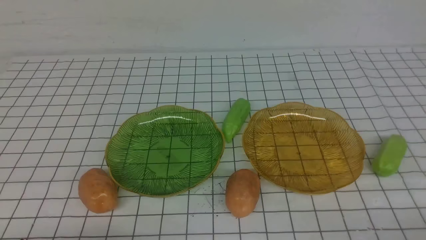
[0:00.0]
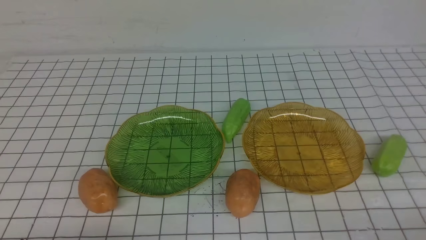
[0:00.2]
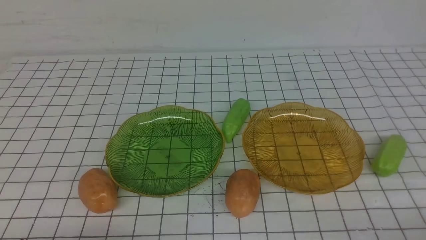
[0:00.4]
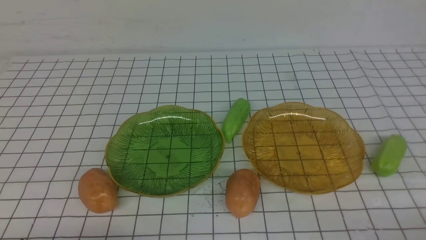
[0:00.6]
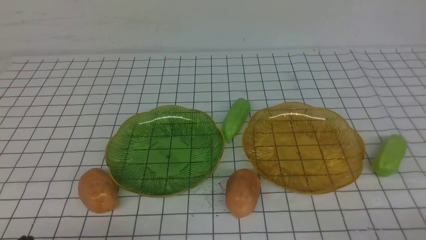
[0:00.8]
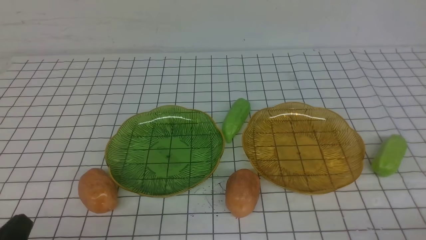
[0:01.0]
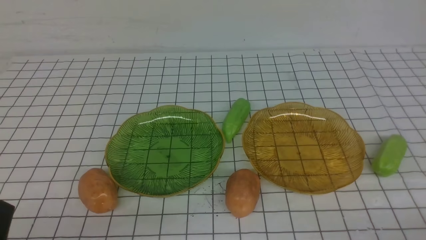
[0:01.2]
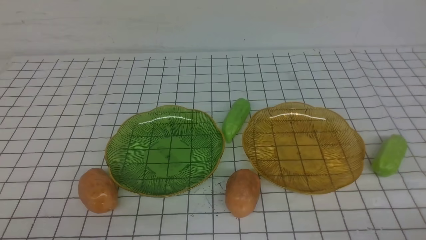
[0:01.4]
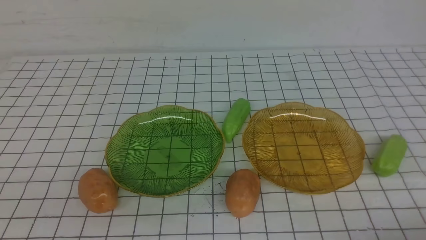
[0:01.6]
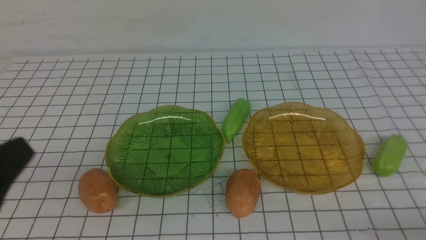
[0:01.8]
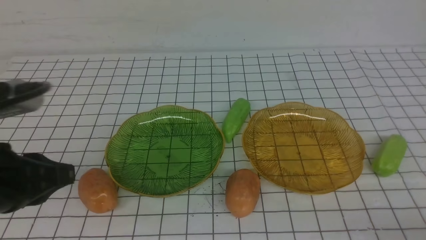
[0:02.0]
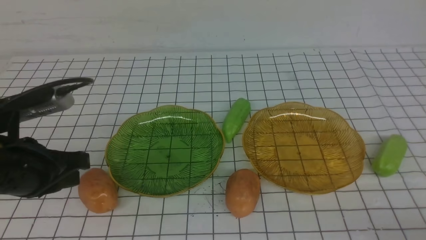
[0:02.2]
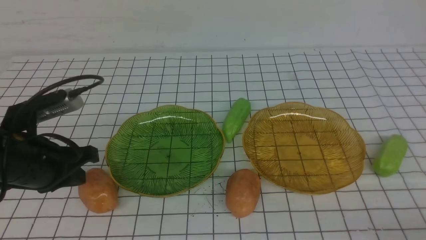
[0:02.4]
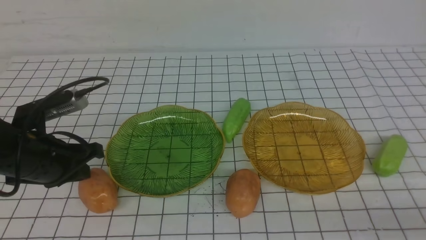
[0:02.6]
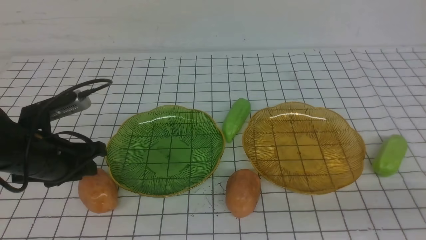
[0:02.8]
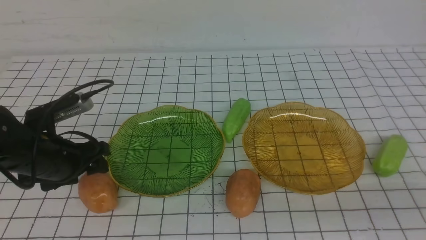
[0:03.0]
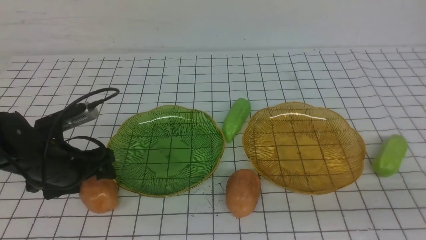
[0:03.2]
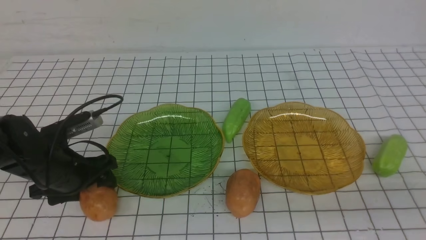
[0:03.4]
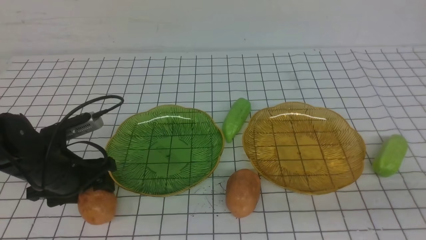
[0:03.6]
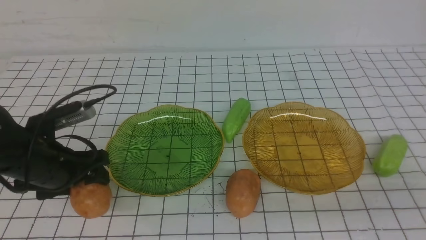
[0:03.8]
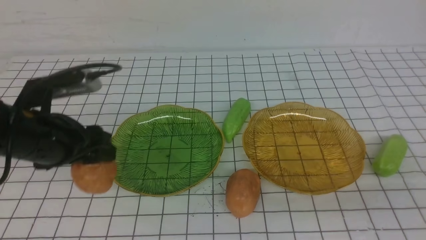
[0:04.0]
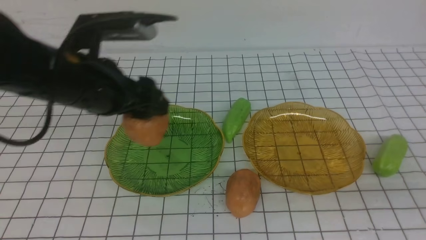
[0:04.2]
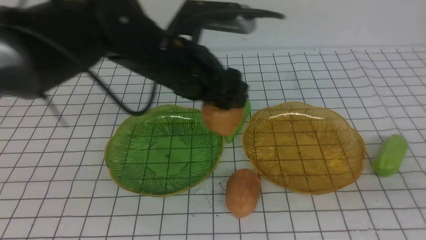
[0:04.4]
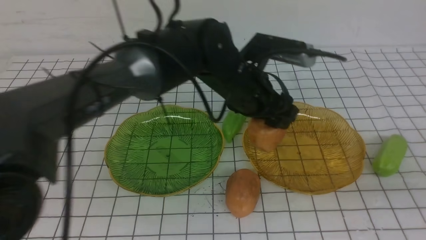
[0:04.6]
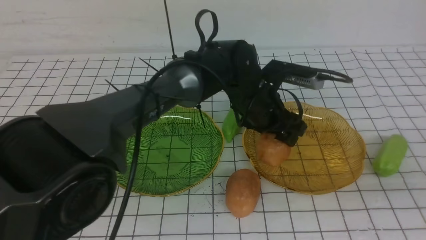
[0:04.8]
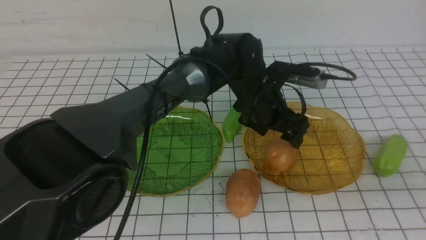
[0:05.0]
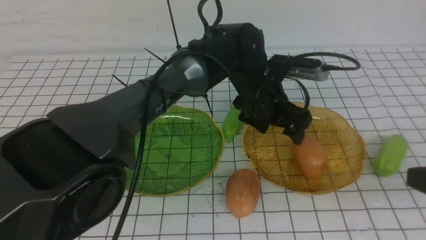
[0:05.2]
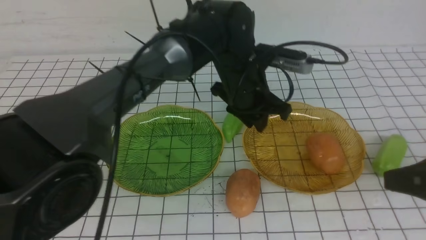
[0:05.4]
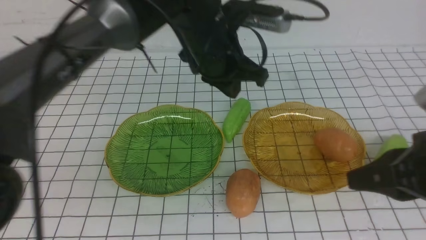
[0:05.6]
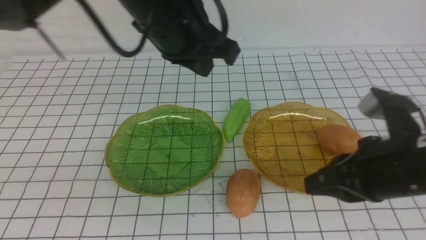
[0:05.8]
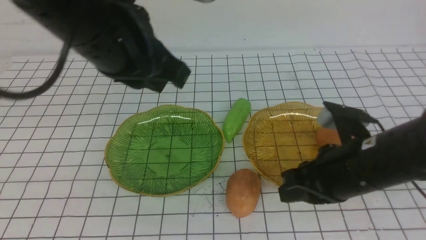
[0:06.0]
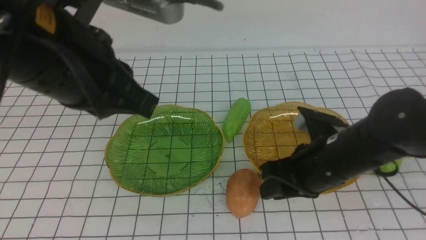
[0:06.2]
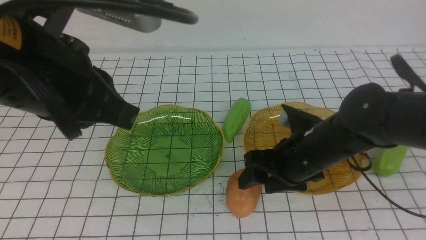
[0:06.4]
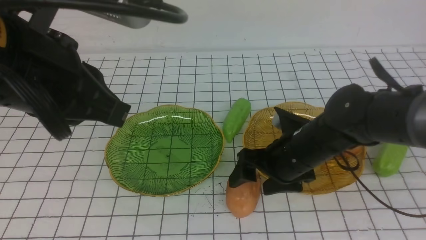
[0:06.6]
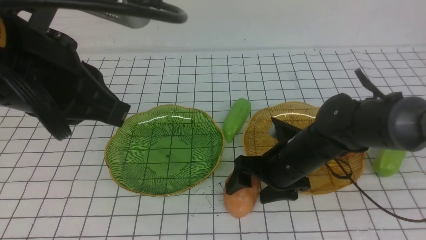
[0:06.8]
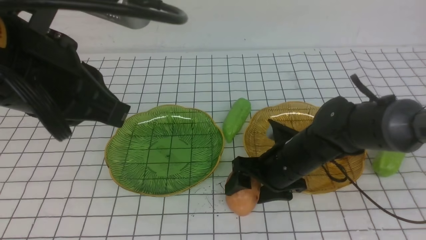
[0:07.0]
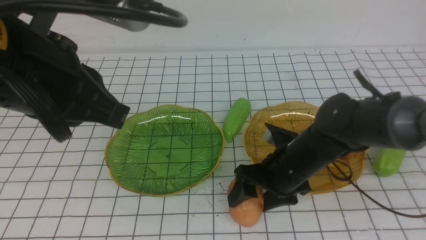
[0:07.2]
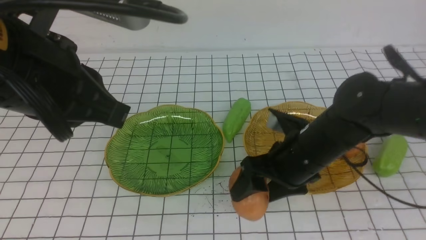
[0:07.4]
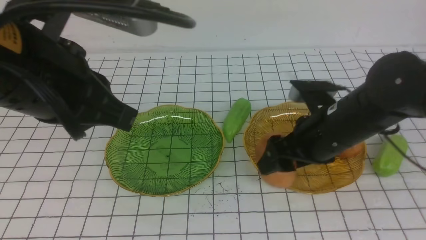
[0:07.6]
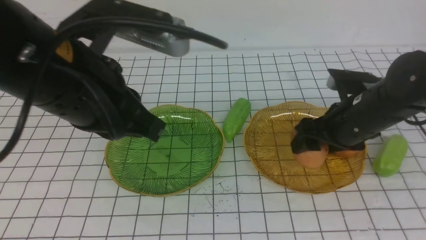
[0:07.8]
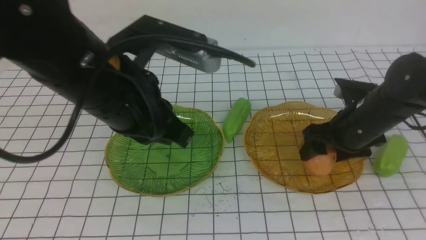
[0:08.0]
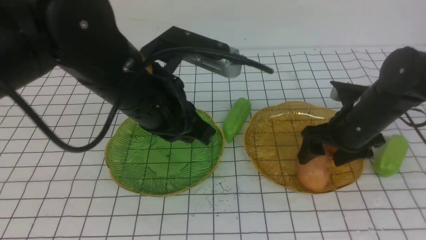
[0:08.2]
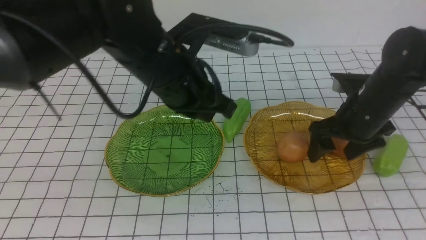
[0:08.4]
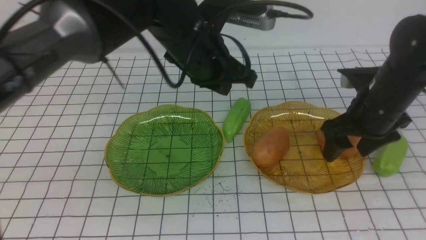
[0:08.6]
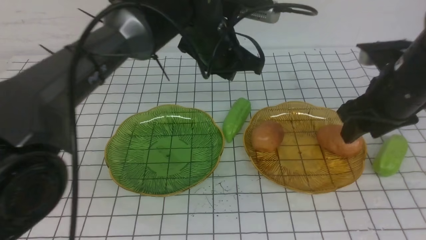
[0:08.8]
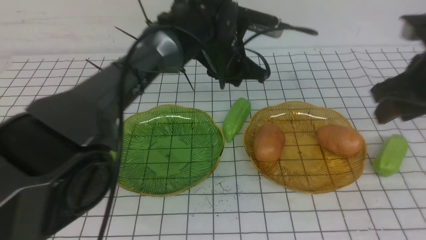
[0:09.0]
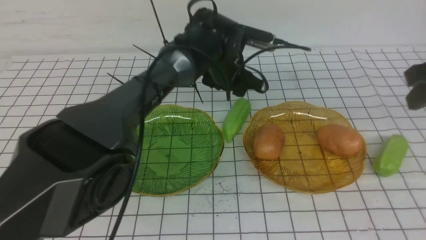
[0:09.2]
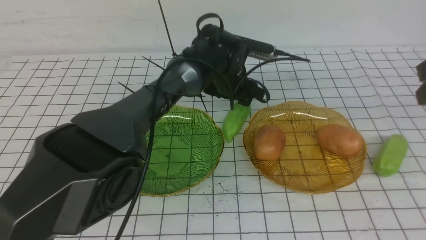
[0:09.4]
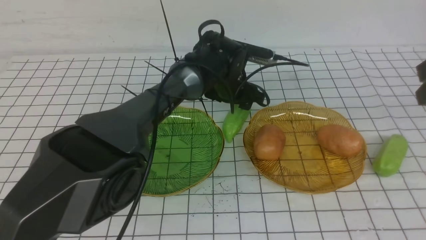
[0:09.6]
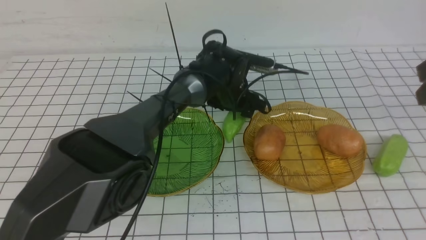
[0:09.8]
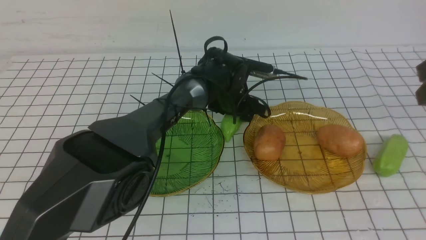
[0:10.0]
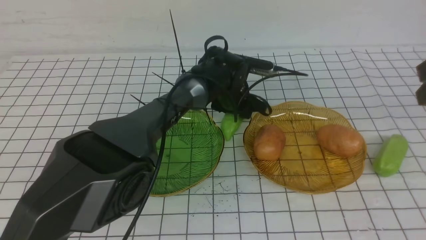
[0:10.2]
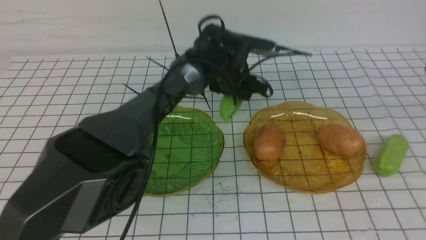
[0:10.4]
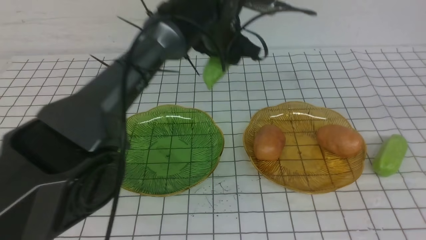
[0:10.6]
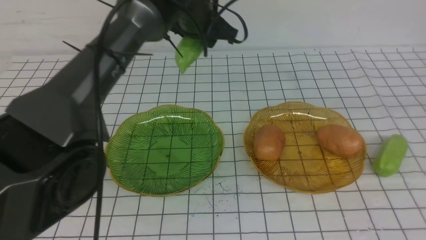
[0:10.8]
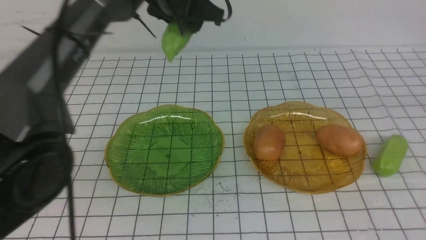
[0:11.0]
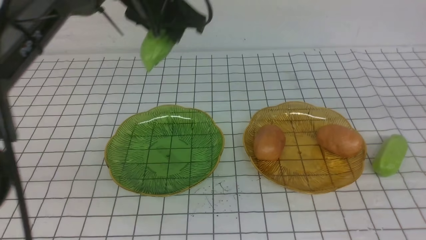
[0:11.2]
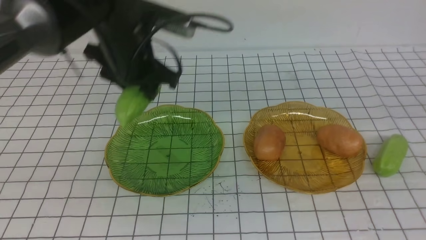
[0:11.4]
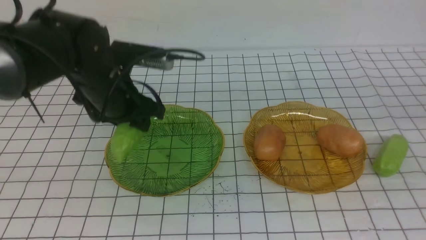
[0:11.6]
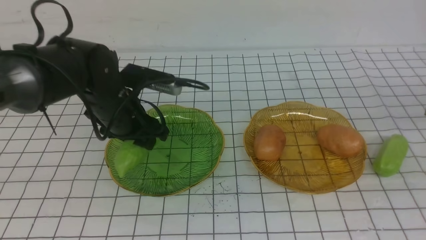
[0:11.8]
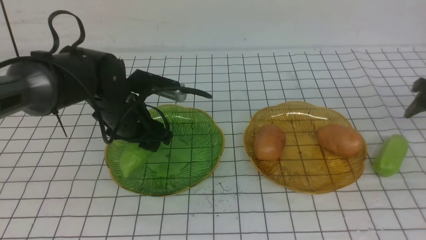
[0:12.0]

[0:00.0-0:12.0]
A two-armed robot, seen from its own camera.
Step, 0:00.0 to 0:04.8: Grab a potato with your left arm and put it on the right plate.
Step, 0:05.2 to 0:08.2: Grab a potato with your right arm and put it on the right plate.
0:01.6 to 0:03.0: The left gripper goes some 25 cm forward and downward, and opens its fingers.
0:03.0 to 0:04.4: The right gripper heads forward, covering approximately 5 cm. The left gripper travels to the right and upward by some 25 cm.
0:04.4 to 0:06.0: The left gripper travels upward, backward and to the left by about 15 cm, and closes up. The right gripper goes about 20 cm to the left, forward and downward.
0:06.0 to 0:07.6: The left gripper shifts by roughly 5 cm. Meanwhile the right gripper shifts some 5 cm forward, goes downward and returns, some 10 cm each way, and opens its fingers.
0:07.6 to 0:09.0: The right gripper shifts some 15 cm to the right and upward. The left gripper heads forward, to the right and downward, covering roughly 30 cm, and opens.
0:09.0 to 0:10.4: The right gripper ends up some 5 cm from where it was, while the left gripper travels downward and back again, about 10 cm each way.
0:10.4 to 0:12.0: The right gripper travels downward, forward and to the right by roughly 20 cm, and opens up; the left gripper goes approximately 20 cm to the left and backward.

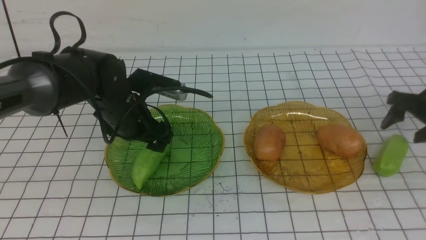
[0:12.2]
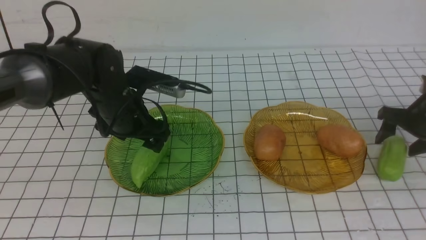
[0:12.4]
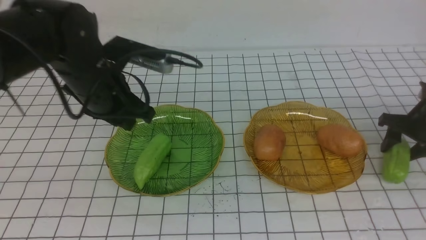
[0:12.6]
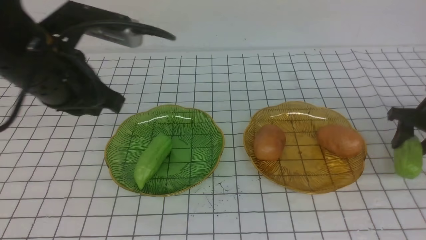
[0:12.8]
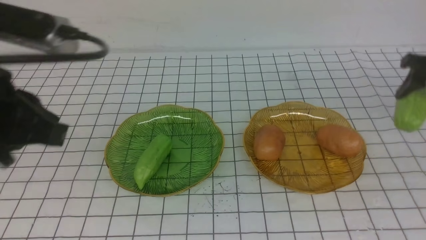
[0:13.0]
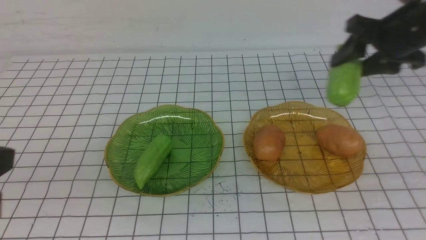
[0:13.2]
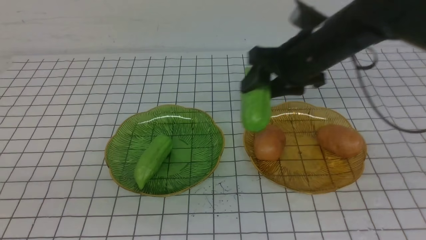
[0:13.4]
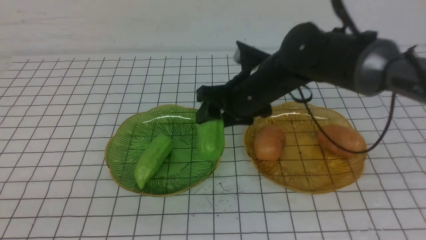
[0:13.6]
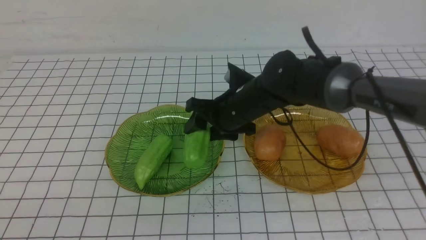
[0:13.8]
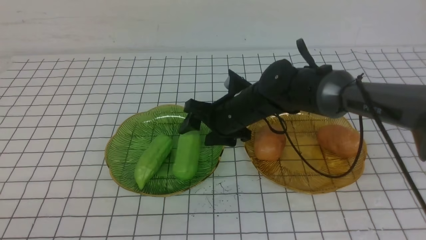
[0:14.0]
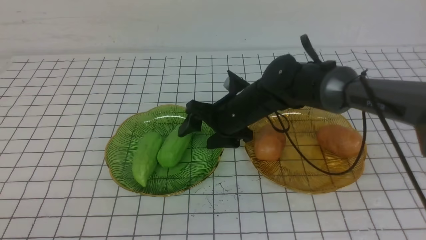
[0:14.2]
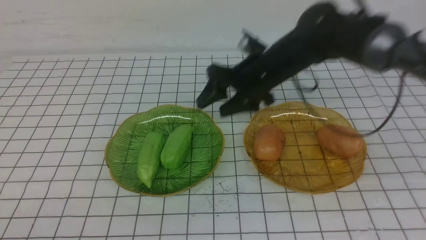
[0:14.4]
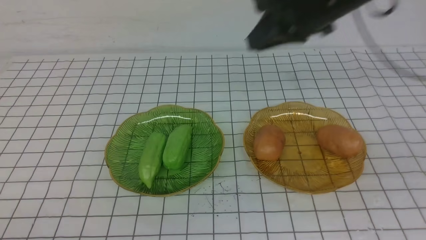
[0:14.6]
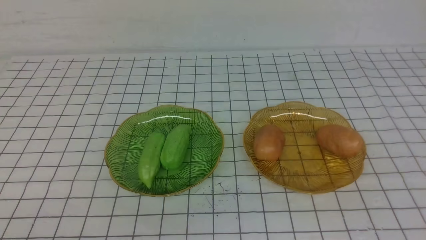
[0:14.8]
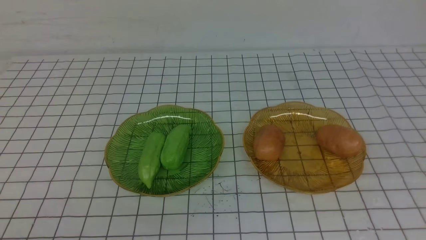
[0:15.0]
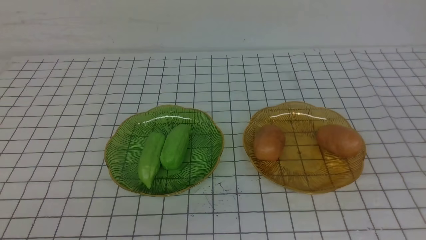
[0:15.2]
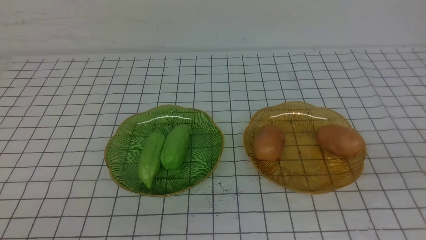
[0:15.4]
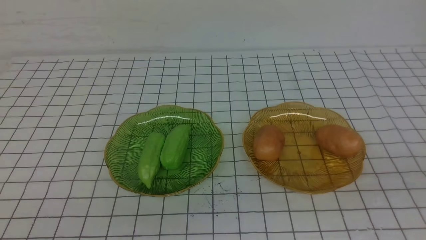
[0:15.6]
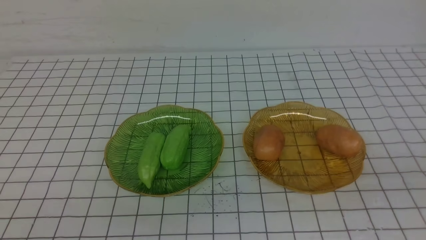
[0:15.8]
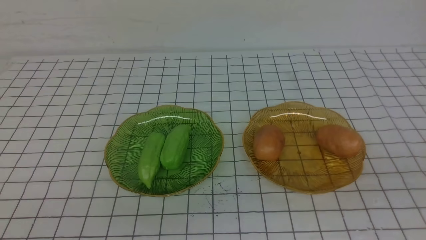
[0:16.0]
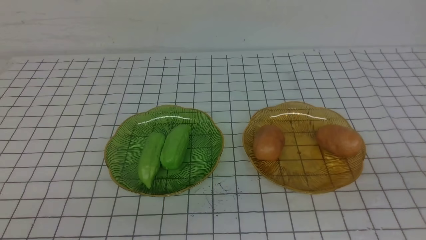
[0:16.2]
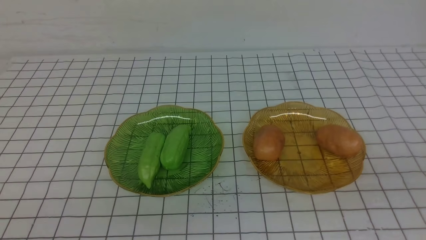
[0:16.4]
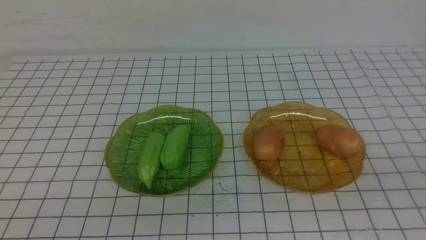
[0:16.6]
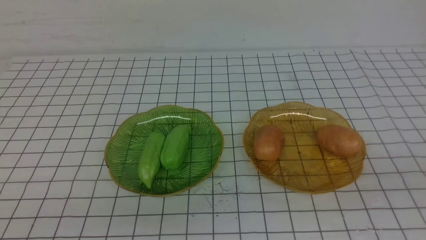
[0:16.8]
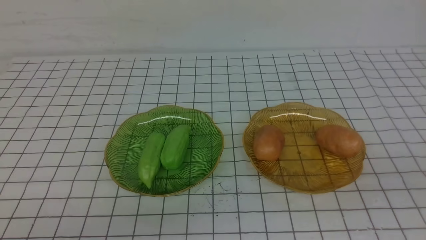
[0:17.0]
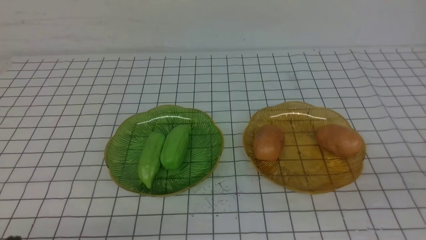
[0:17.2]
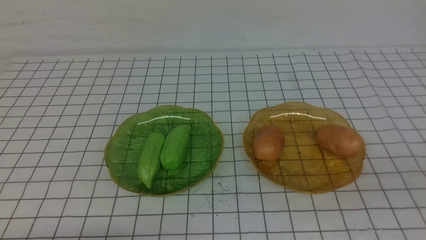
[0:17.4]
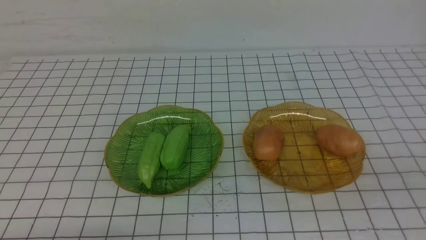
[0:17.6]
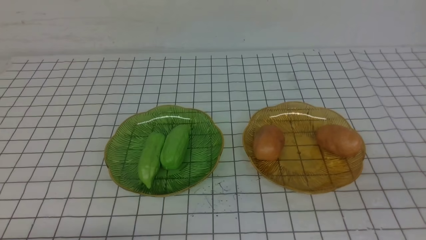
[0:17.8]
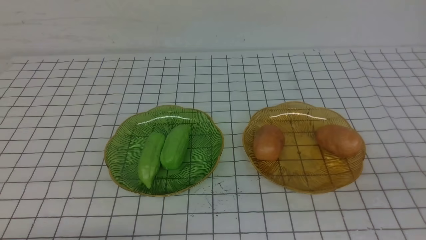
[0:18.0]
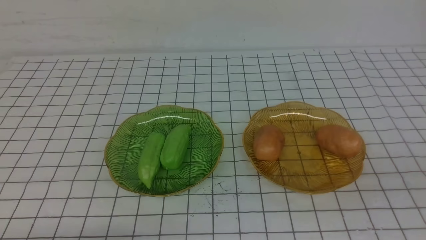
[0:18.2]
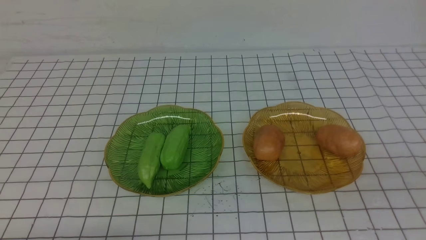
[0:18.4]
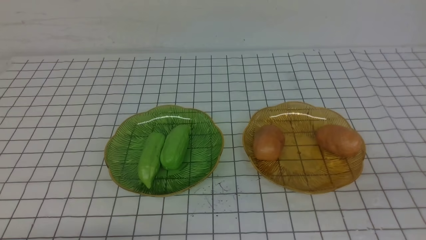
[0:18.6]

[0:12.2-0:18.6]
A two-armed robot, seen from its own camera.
Step, 0:12.4 to 0:14.2: Grab the chayote with your right arm and put it on the left plate.
0:12.2 to 0:13.8: The right gripper heads to the left, covering approximately 35 cm. Meanwhile the left gripper heads backward, covering some 35 cm, and closes.
0:13.8 to 0:15.4: The right gripper shifts roughly 50 cm backward, to the right and upward, and closes up.
